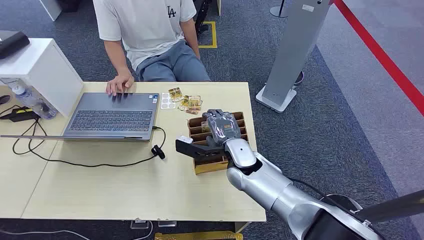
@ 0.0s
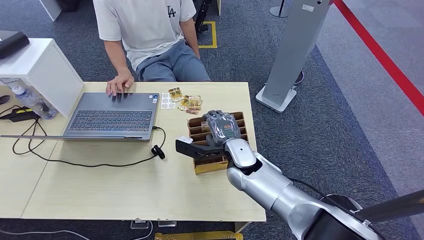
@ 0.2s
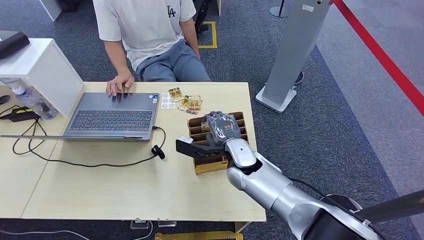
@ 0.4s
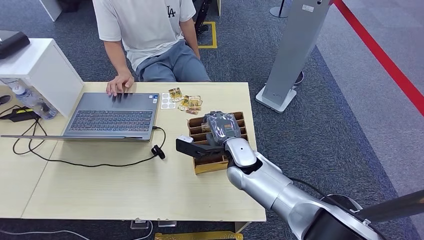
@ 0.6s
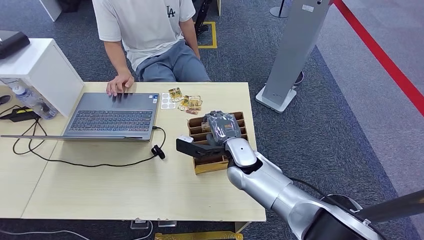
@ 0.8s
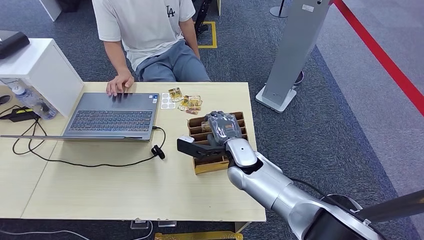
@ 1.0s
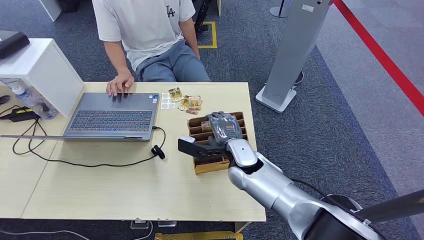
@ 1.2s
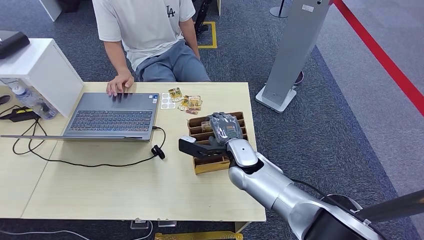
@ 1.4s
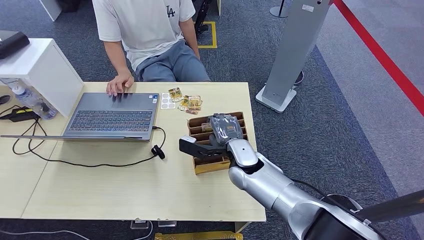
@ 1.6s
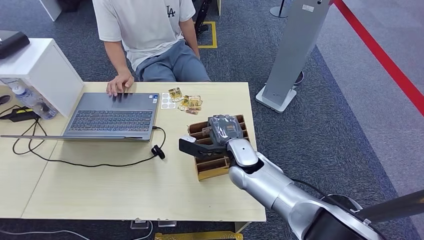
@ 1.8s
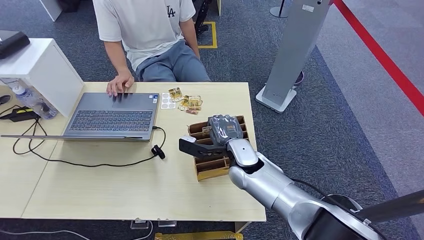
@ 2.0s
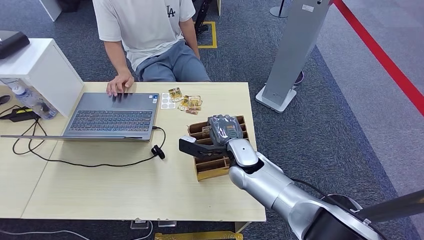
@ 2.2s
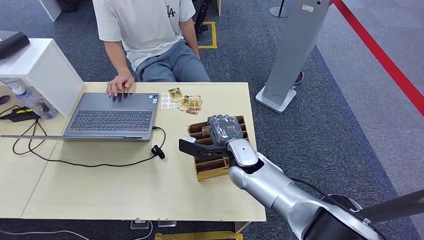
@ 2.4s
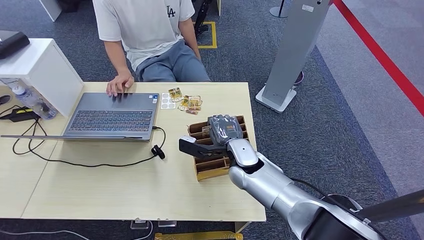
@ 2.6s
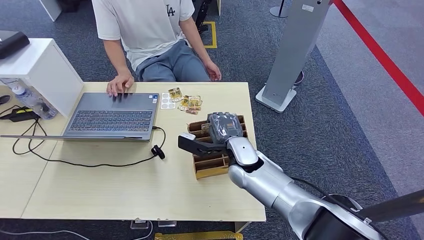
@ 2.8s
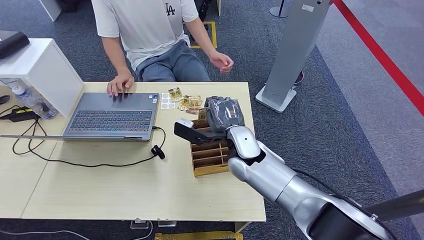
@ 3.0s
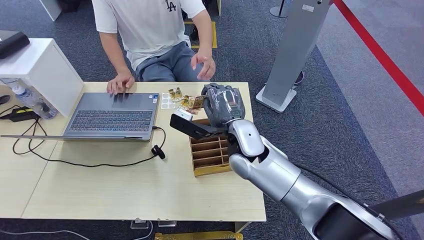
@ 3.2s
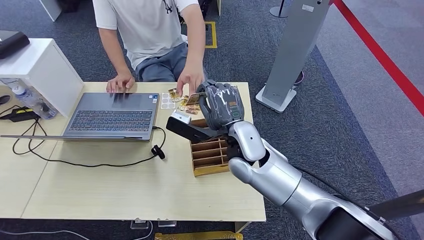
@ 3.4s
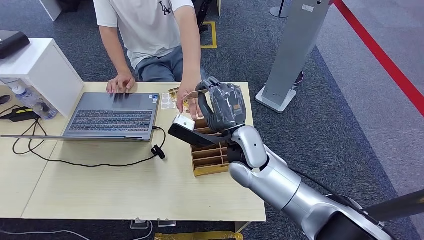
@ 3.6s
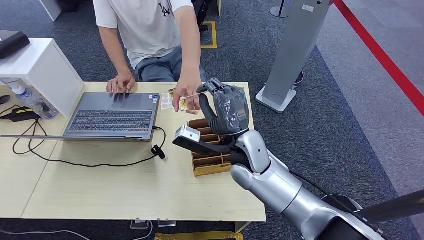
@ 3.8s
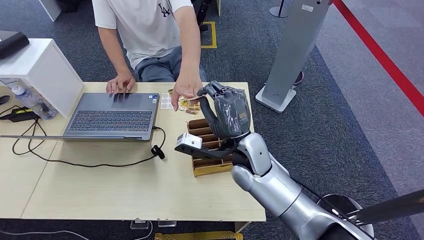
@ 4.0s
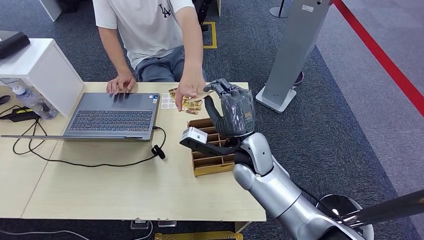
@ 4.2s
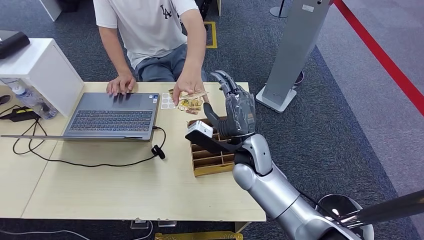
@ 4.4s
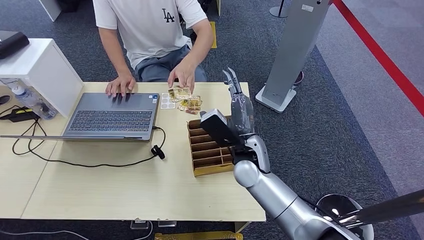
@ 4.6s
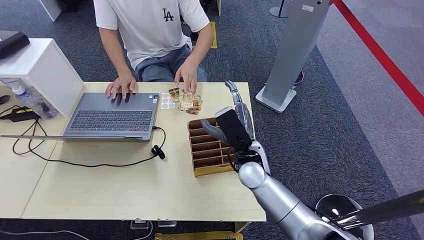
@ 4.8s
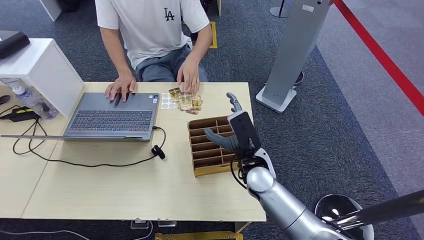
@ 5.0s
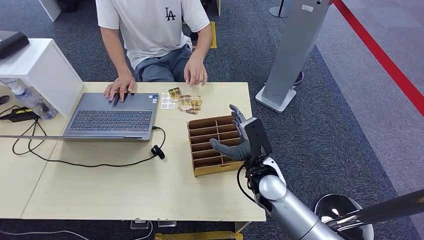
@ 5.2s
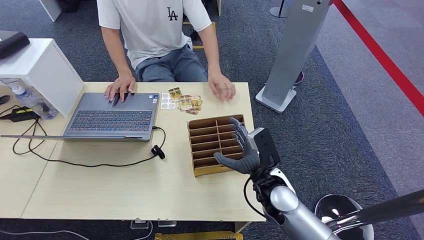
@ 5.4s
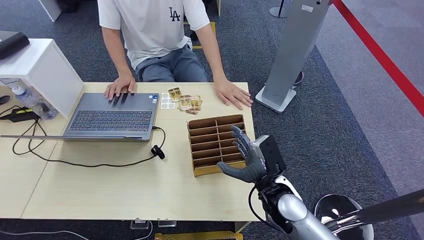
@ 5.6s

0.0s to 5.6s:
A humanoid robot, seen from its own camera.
Step, 0.0s to 2.8s: Pick up the key card from the card box.
Step, 3.0s to 5.6s: Hand the key card to the target.
1.4s to 2.8s: Both hands stay put.
2.8s to 4.2s: The right hand is displaced upward by about 5 cm.
4.2s to 5.6s: The right hand heads to the right, downward and backward, covering roughly 15 cm.
